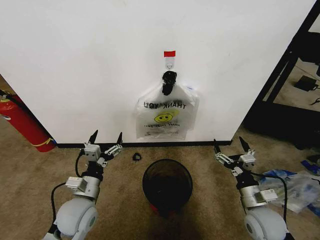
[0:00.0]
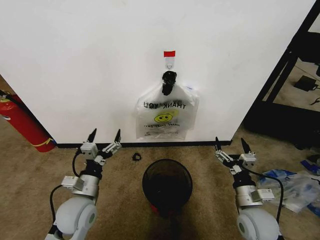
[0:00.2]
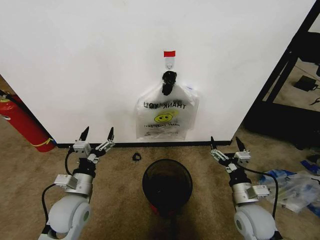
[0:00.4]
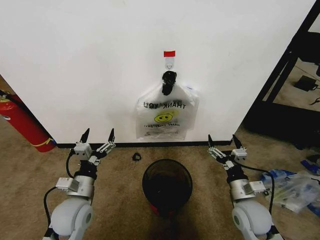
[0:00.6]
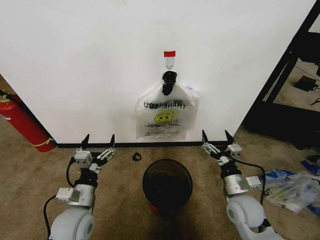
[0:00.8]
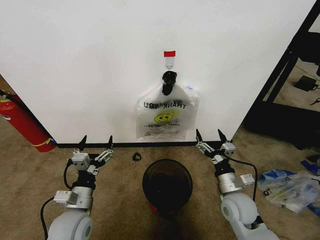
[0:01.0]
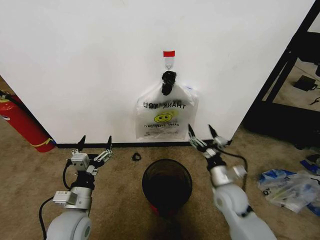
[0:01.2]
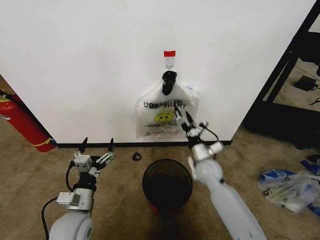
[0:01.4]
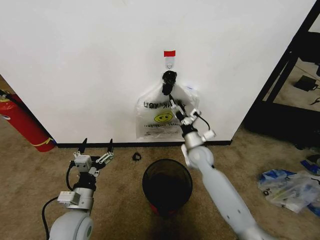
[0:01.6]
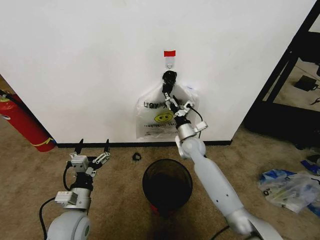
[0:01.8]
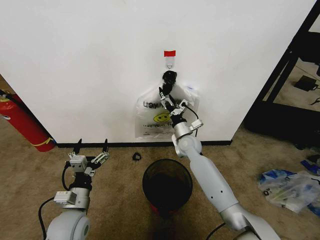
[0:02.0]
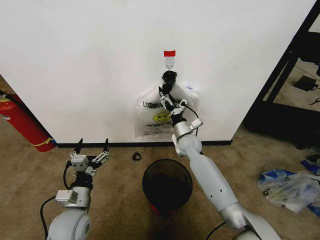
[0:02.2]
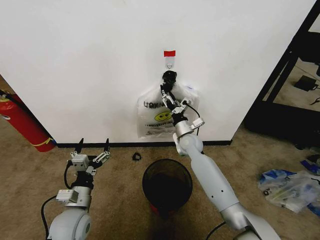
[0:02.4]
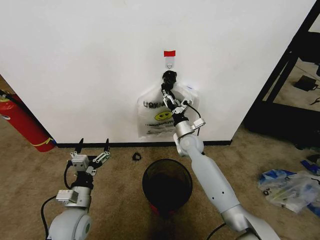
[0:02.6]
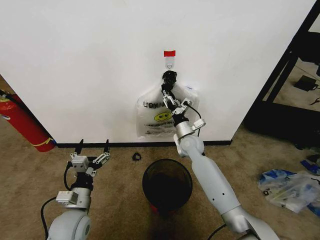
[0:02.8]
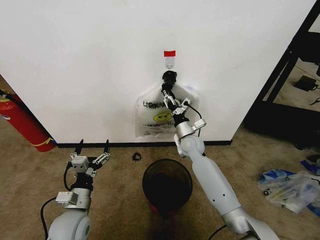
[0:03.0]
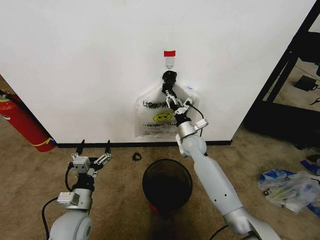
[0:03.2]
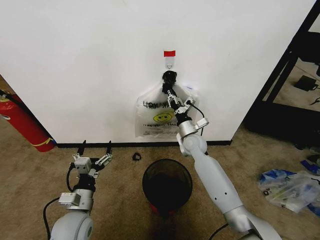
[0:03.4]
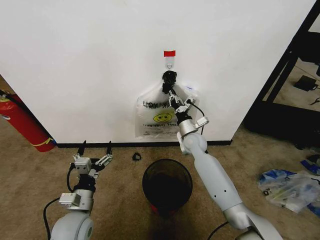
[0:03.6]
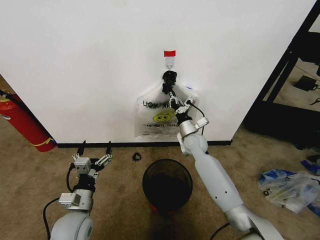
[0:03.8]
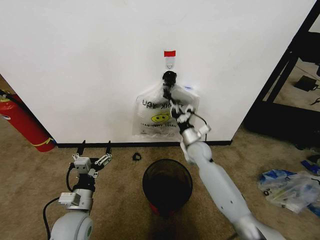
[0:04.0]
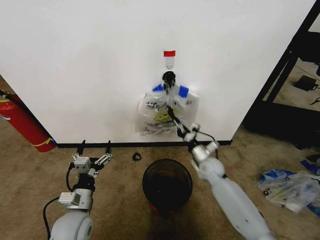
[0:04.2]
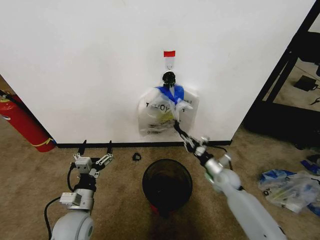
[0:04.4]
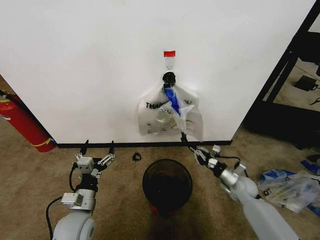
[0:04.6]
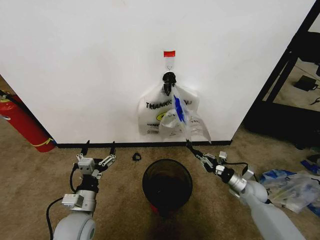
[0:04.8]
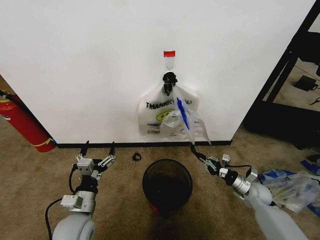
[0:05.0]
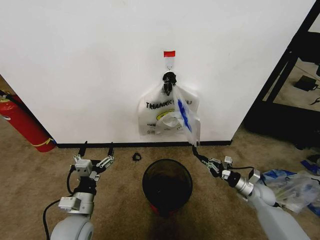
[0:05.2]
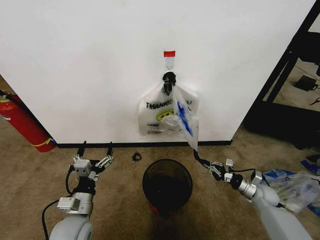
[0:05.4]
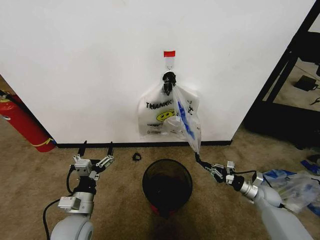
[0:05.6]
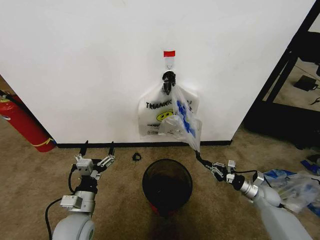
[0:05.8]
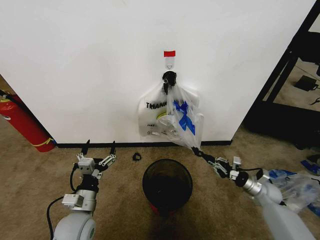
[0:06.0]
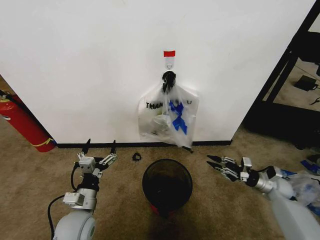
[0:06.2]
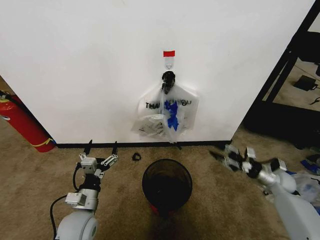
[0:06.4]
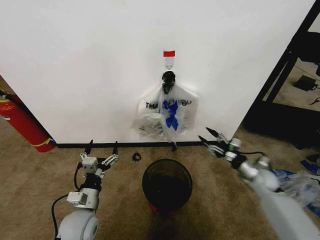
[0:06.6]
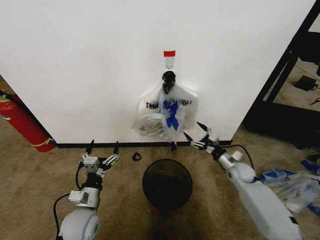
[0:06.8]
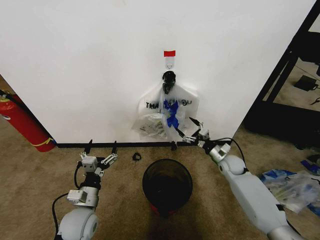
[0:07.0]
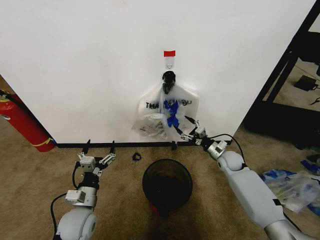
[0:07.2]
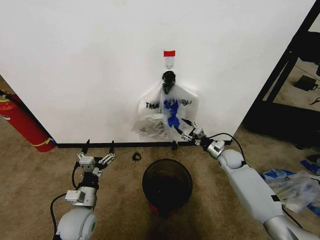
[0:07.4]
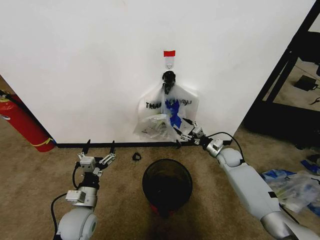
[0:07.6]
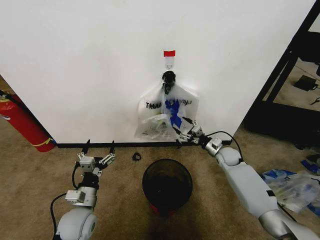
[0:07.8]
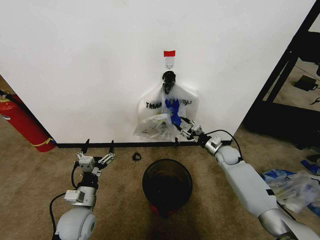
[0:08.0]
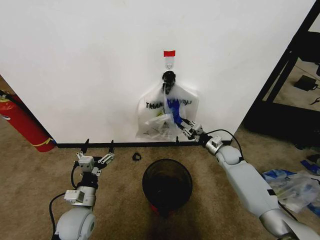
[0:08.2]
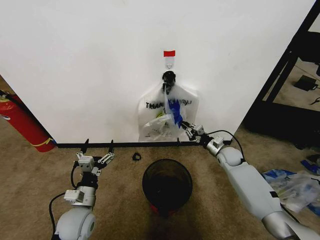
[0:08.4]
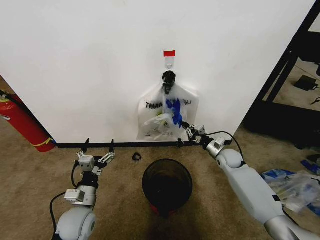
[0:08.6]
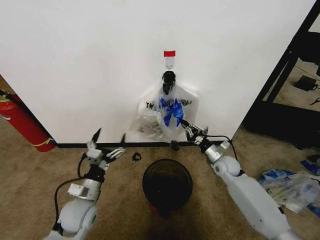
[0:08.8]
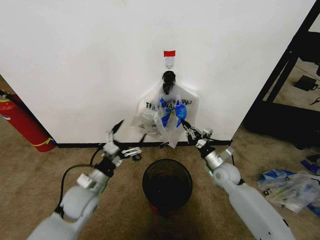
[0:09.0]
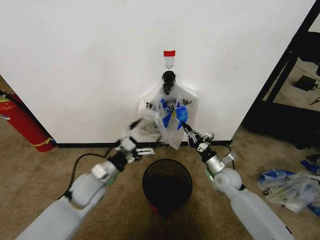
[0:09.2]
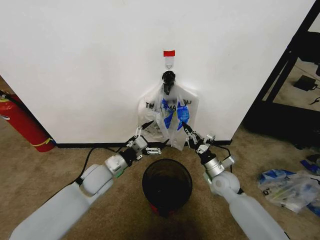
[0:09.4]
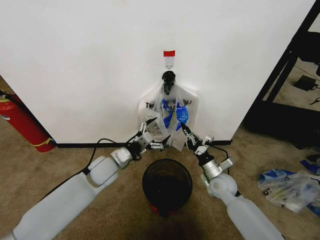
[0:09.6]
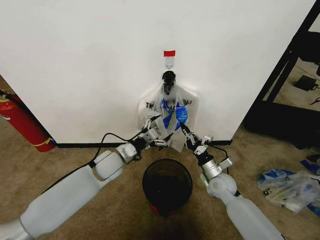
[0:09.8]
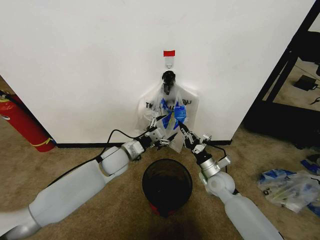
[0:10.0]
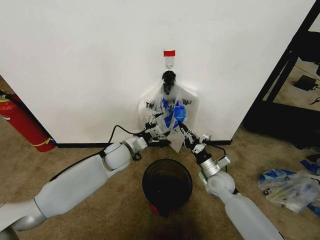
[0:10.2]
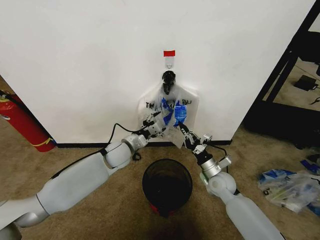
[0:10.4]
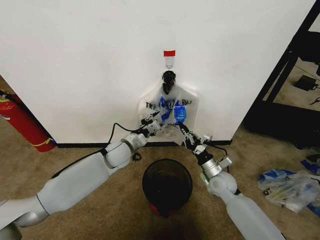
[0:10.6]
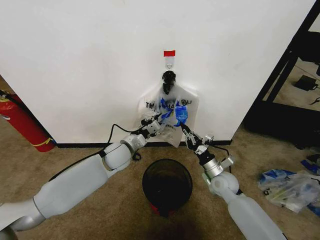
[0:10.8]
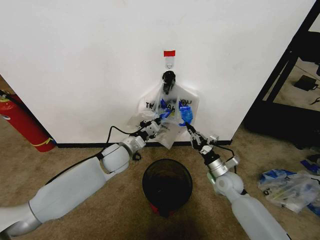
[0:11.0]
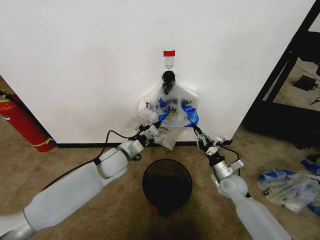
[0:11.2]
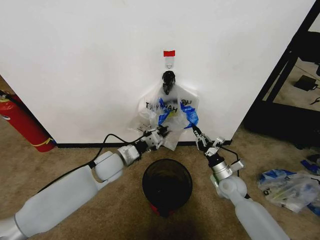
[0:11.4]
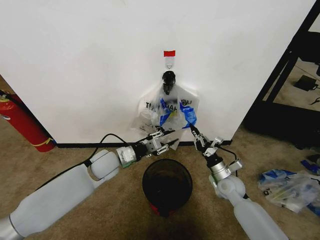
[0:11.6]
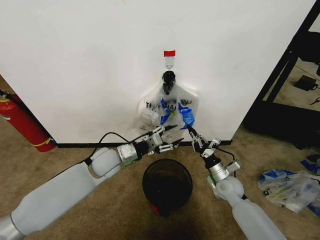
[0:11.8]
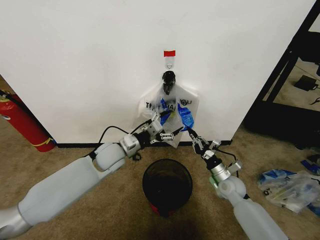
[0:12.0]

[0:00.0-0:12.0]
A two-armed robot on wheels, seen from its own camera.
Task of the whole recording: Pick up the garbage bag from the wall and place it over the trash bin.
0:01.6 to 0:03.0: The right gripper shifts by approximately 5 cm, and closes up.
0:03.0 to 0:04.4: The right gripper goes approximately 20 cm to the right, downward and backward, and closes up.
0:04.4 to 0:06.0: The right gripper is displaced to the right by approximately 15 cm.
0:06.0 to 0:07.6: The right gripper moves forward, to the left and upward, roughly 20 cm, and opens its fingers.
0:07.6 to 0:09.0: The right gripper moves backward, roughly 10 cm, and closes up. The left gripper ends up about 5 cm from where it was.
0:09.0 to 0:10.4: The left gripper shifts some 20 cm forward and to the right.
0:10.4 to 0:12.0: The left gripper ends up some 5 cm from where it was, and closes, then opens again.

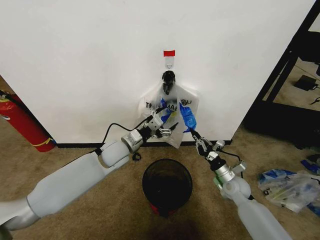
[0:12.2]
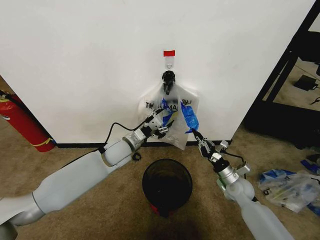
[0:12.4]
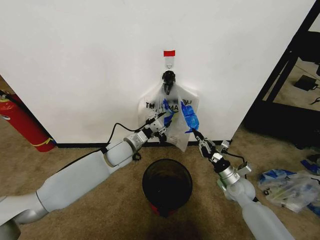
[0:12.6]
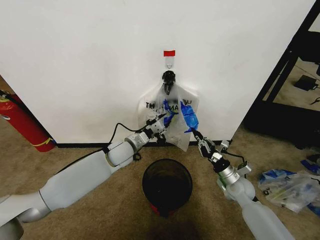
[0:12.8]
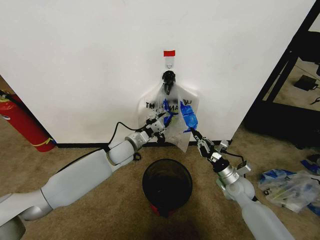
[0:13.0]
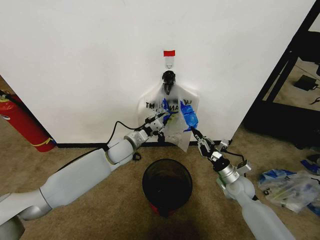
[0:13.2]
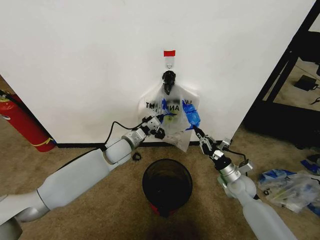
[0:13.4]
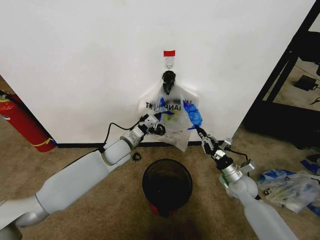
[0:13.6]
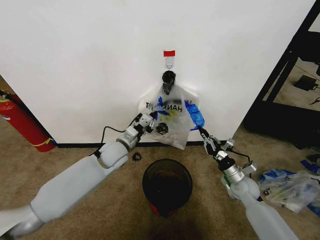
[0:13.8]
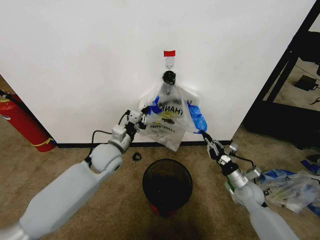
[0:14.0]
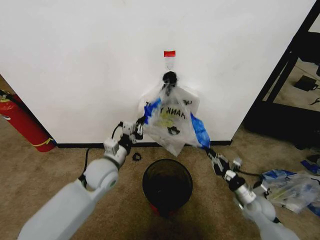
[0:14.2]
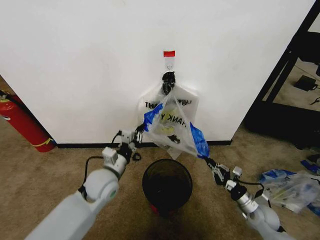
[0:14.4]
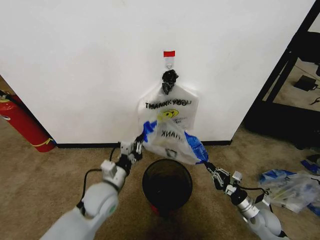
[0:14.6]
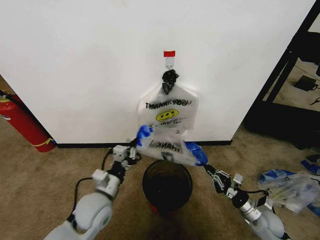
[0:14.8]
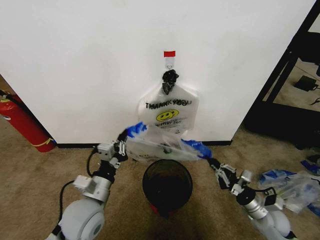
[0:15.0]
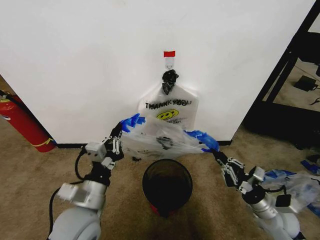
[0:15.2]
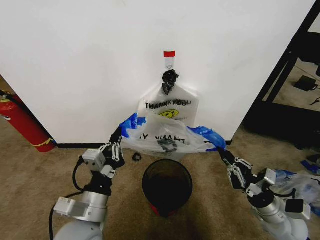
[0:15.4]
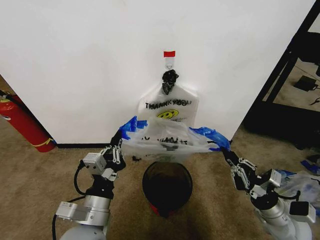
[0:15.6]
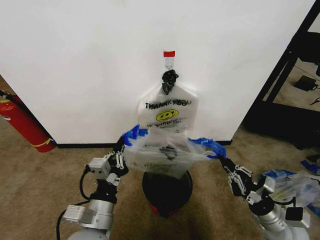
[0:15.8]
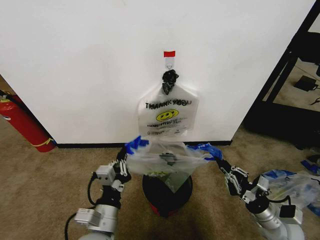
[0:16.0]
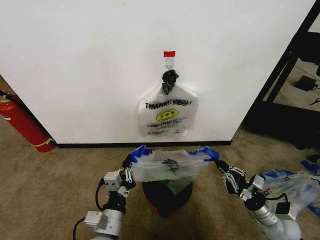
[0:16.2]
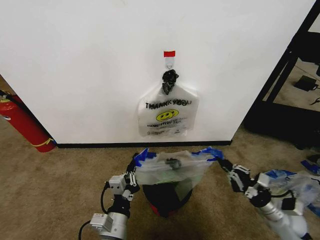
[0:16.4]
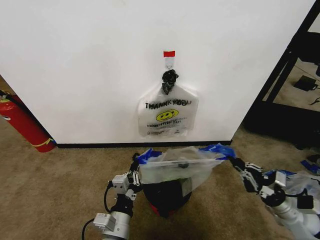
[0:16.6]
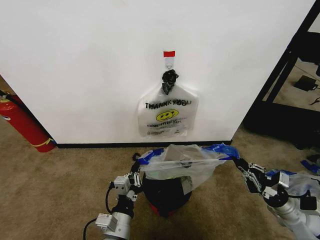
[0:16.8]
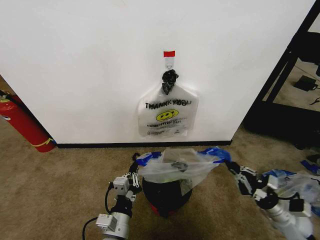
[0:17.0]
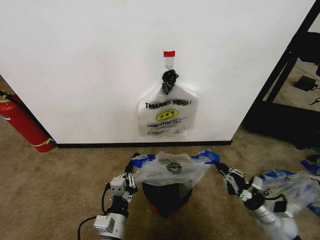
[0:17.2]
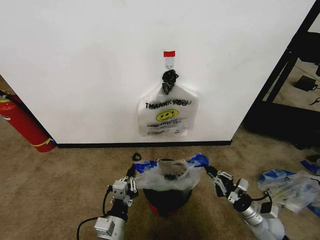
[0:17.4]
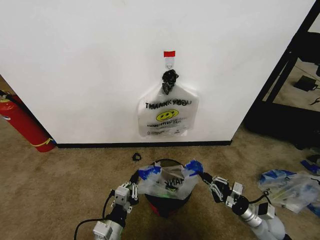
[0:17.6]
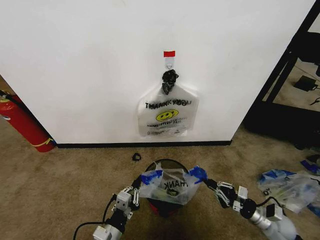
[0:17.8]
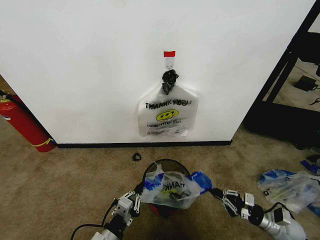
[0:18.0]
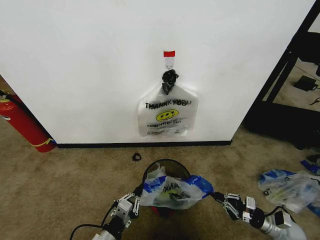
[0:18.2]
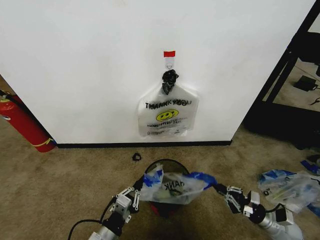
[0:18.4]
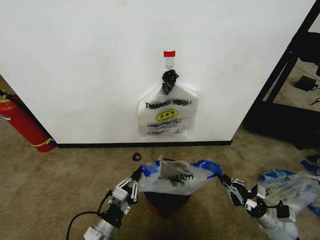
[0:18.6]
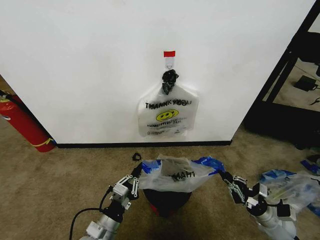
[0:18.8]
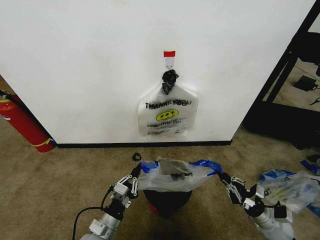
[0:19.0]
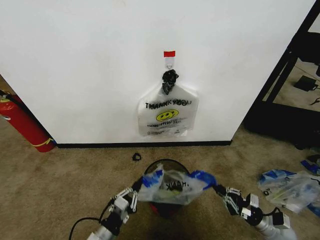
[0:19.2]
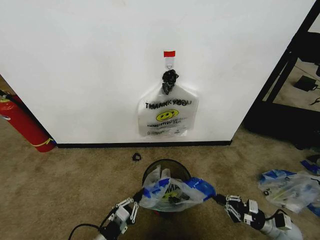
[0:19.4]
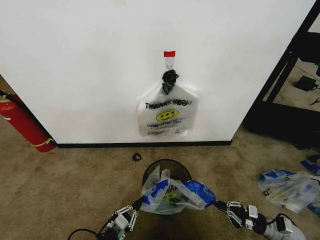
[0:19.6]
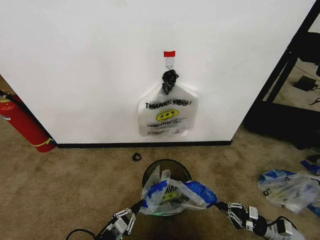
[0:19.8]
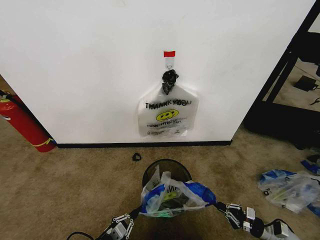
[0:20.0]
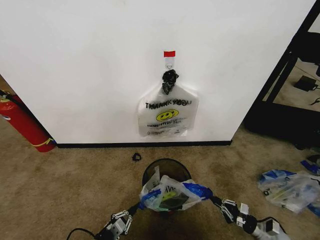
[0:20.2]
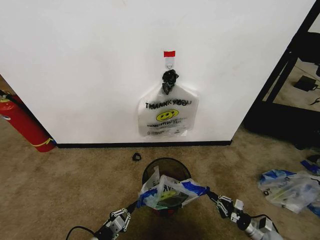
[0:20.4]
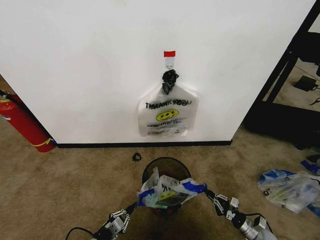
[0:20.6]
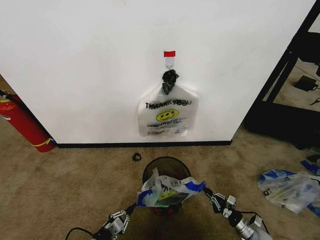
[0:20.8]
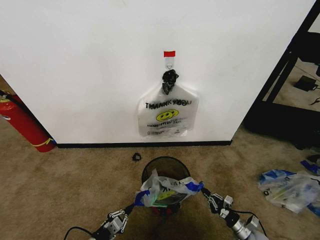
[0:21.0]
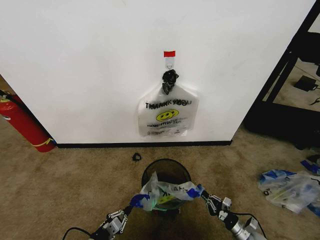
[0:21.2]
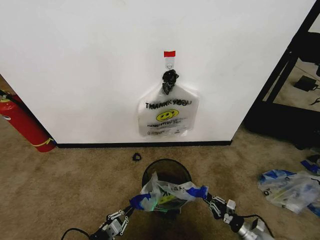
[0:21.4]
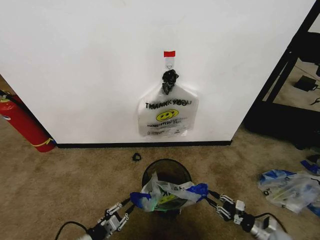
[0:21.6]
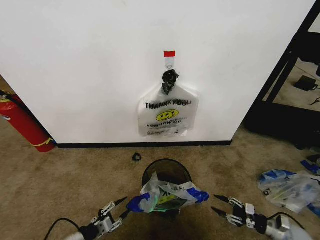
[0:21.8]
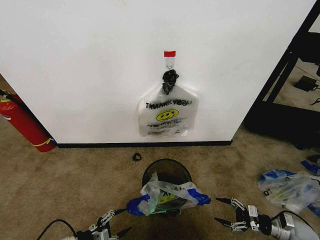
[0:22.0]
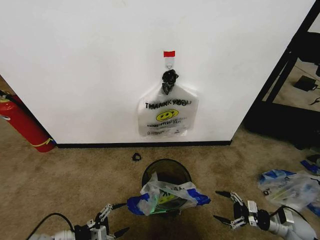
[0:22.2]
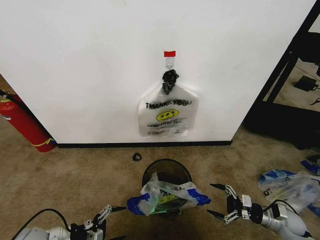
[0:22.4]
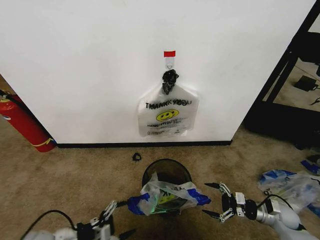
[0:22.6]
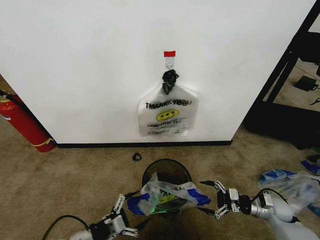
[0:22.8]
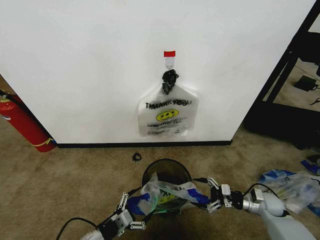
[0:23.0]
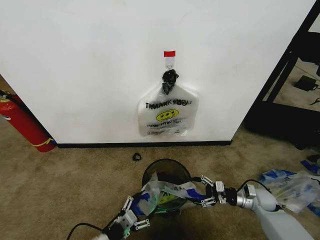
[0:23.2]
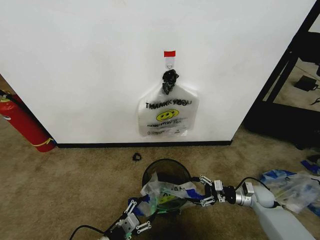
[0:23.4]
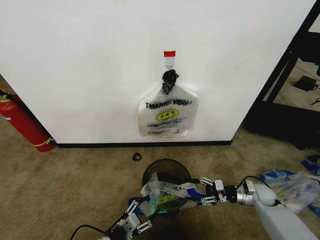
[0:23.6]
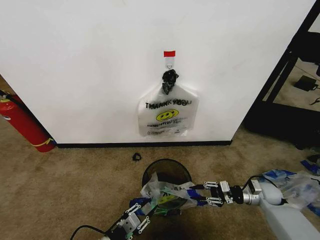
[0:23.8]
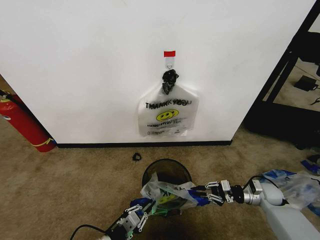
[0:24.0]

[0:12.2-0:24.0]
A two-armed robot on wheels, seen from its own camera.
Task of the whole recording: Pick up the garbage bag from the wall and place it over the trash bin.
0:12.2 to 0:13.6: The left gripper closes its fingers.
0:13.6 to 0:15.2: The left gripper moves backward, some 25 cm, while the right gripper is displaced backward by about 10 cm.
0:15.2 to 0:16.6: The left gripper goes about 10 cm downward and to the right. The right gripper moves to the right, approximately 5 cm.
0:16.6 to 0:18.2: The left gripper heads to the left and downward, covering roughly 10 cm; the right gripper is displaced downward by roughly 10 cm.
0:18.2 to 0:19.6: The left gripper ends up approximately 5 cm from where it was.
0:19.6 to 0:21.0: The left gripper is displaced downward and to the left by about 10 cm. The right gripper shifts roughly 10 cm downward and to the left.
0:21.0 to 0:22.6: The right gripper goes roughly 15 cm upward, forward and to the right, and opens up. Meanwhile the left gripper travels upward by approximately 15 cm, and opens up.
0:22.6 to 0:24.0: The right gripper heads forward, covering some 5 cm, and closes; the left gripper shifts some 10 cm to the right, and closes.
